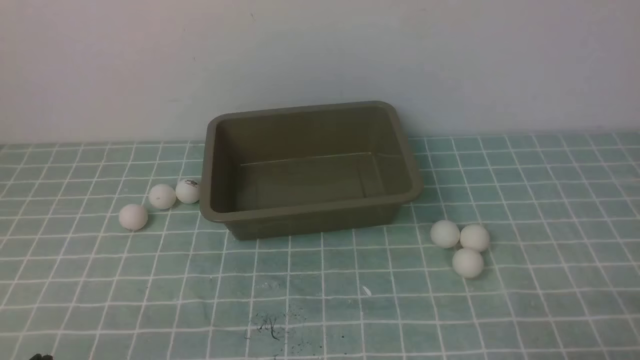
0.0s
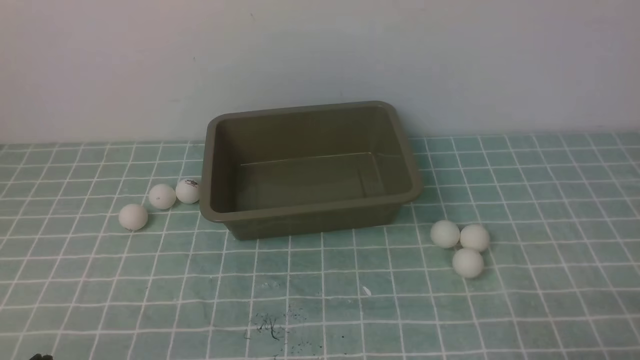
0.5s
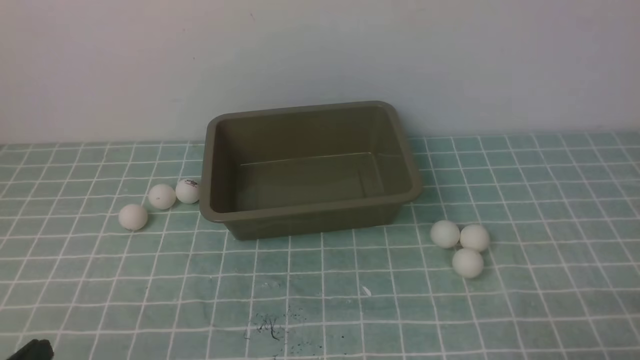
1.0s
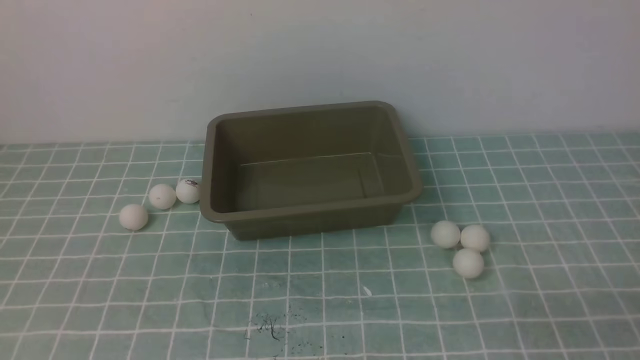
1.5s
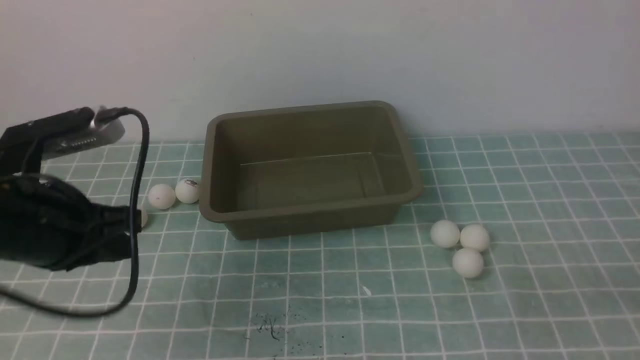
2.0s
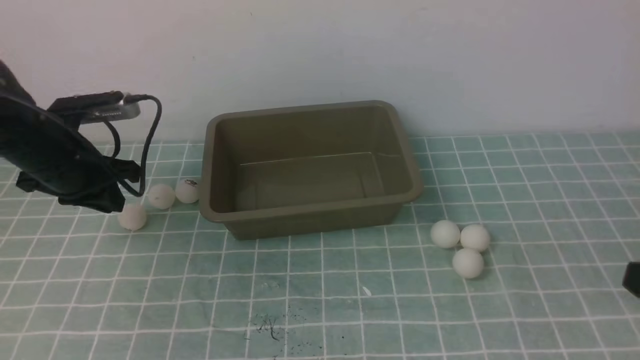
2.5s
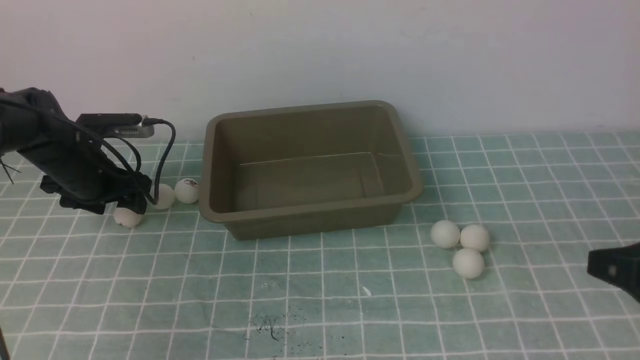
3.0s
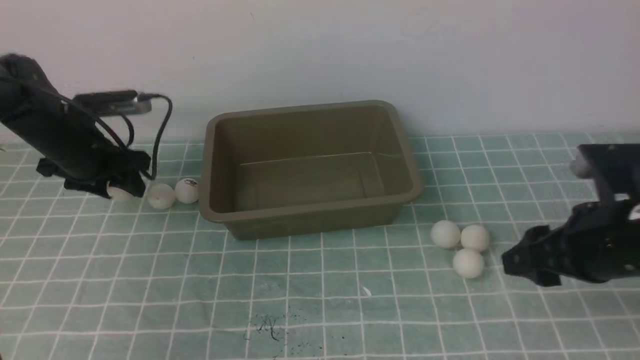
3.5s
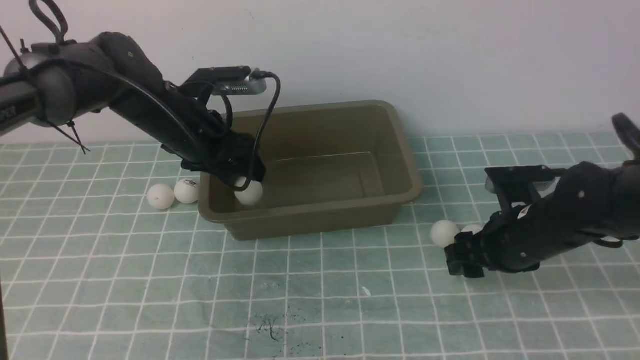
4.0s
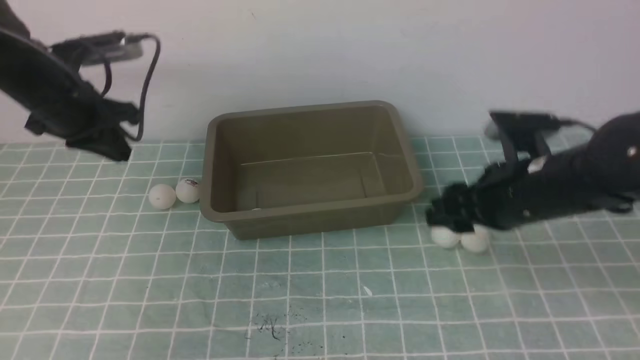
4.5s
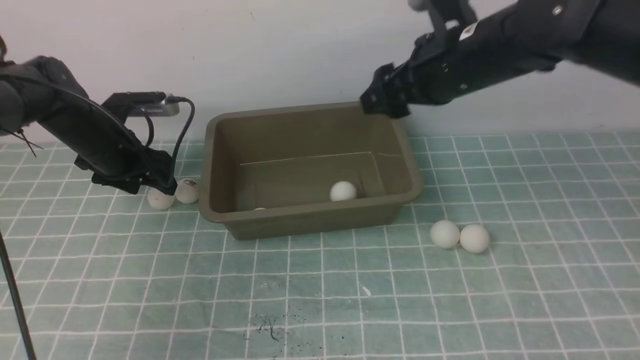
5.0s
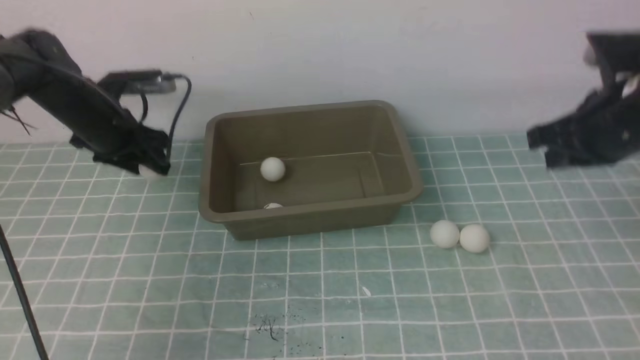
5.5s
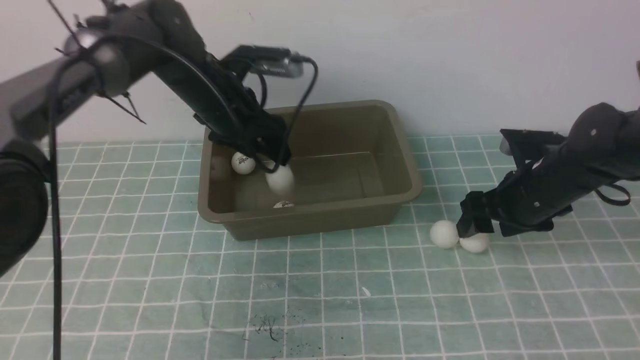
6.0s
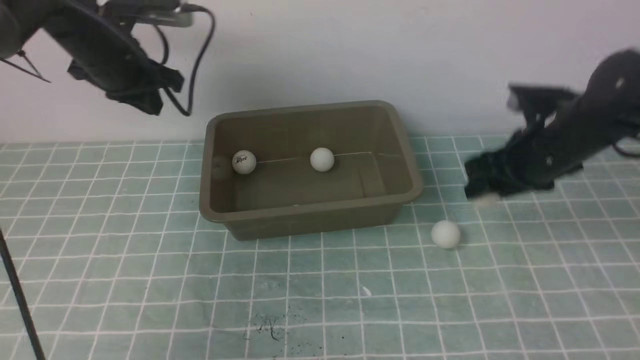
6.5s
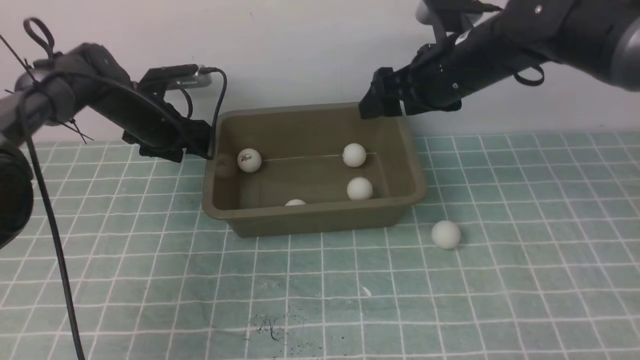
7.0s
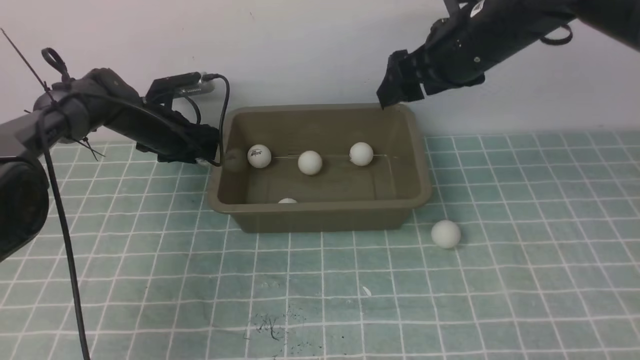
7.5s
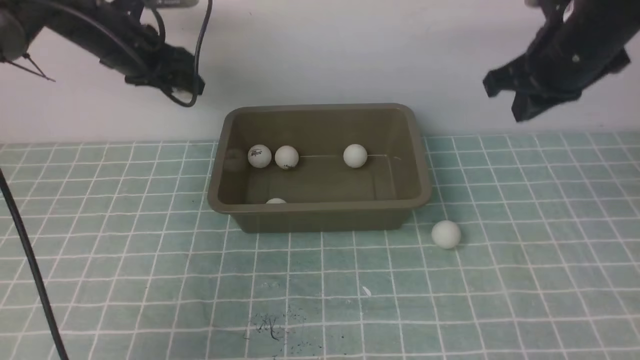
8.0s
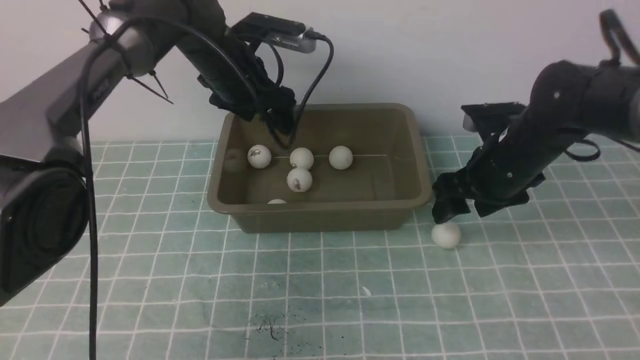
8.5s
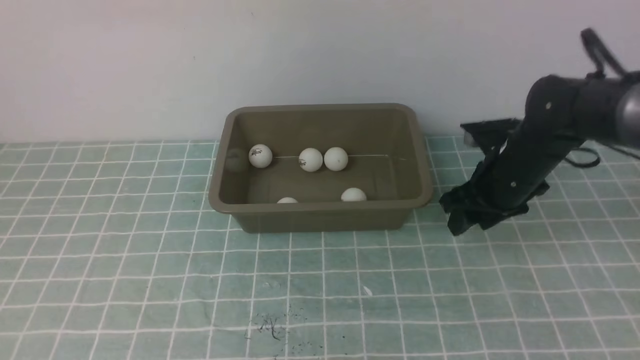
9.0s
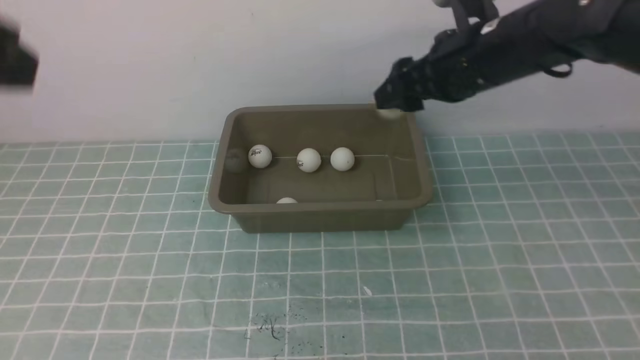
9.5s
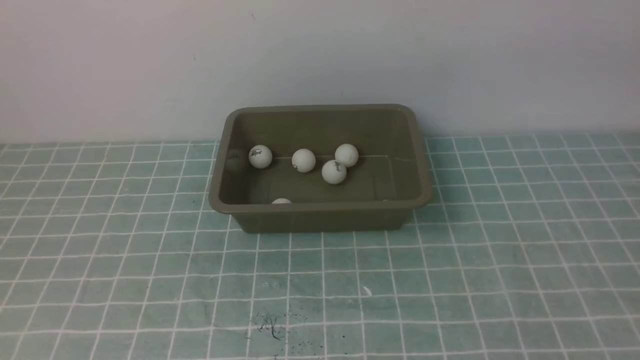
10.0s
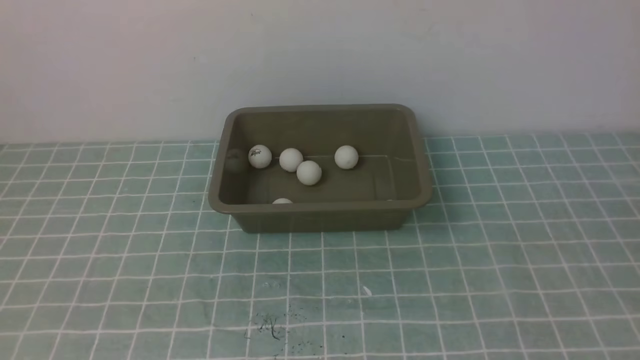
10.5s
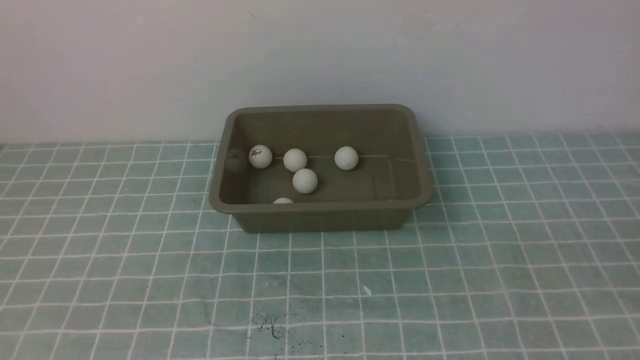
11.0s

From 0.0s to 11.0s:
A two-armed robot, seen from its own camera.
Step, from 0.0s to 3.5s: use the left arm to clamp the table tennis ball closest to it.
Step, from 5.5s to 6.0s: use the left arm to put the table tennis ball into the box.
From 0.0s to 2.0s: The left gripper is displaced forward and upward by some 20 cm, while the right gripper goes some 5 cm upward.
From 2.0s to 3.5s: The left gripper shifts approximately 20 cm forward and downward, and opens up. Meanwhile the right gripper heads forward, covering some 20 cm, and opens up.
From 3.5s to 5.5s: The left gripper travels to the right and back again, roughly 10 cm each way, and closes, then reopens, while the right gripper goes up and down, about 15 cm each way, reversing 2 times, and closes its fingers.
From 5.5s to 7.5s: The left gripper moves downward and forward, approximately 10 cm, and closes and opens again; the right gripper travels to the left, upward and forward by roughly 15 cm, and opens up.
From 7.5s to 9.0s: The left gripper travels upward and backward by approximately 40 cm, and closes up. The right gripper is displaced downward by some 10 cm, and closes, then reopens.
From 9.0s to 11.0s: The left gripper moves backward and downward, about 40 cm, while the right gripper shifts about 35 cm backward, and closes.

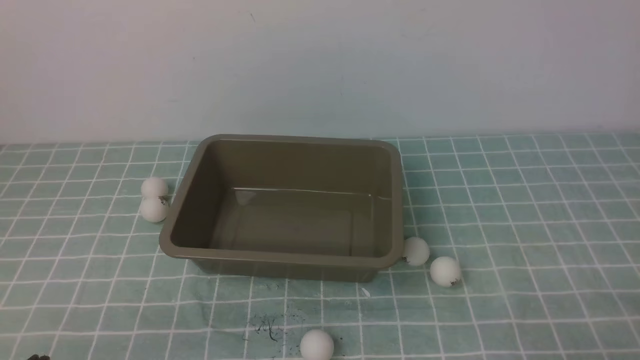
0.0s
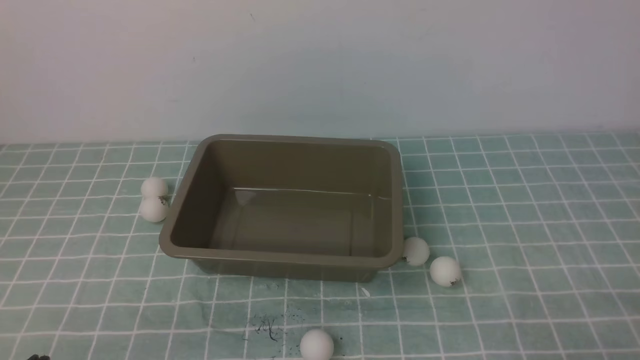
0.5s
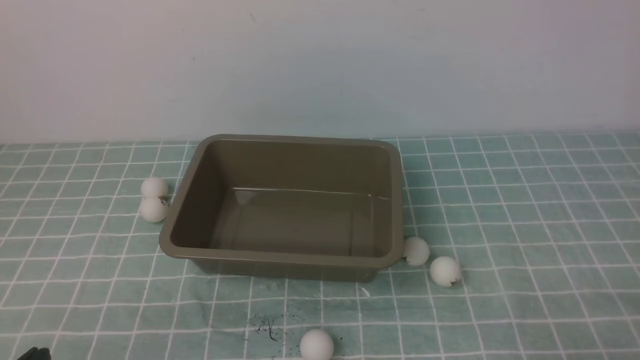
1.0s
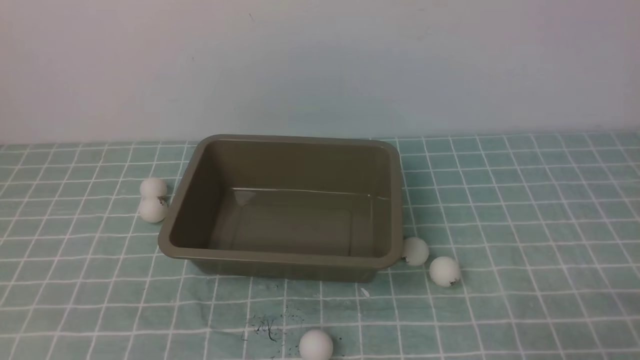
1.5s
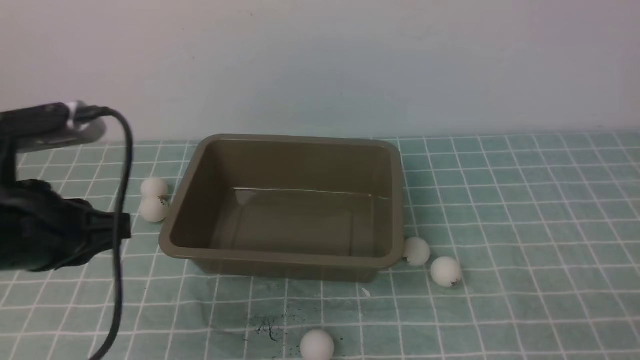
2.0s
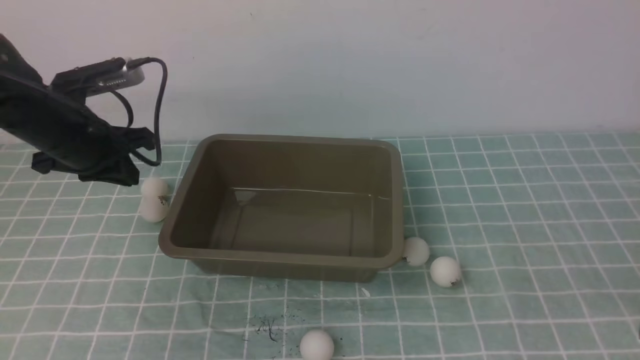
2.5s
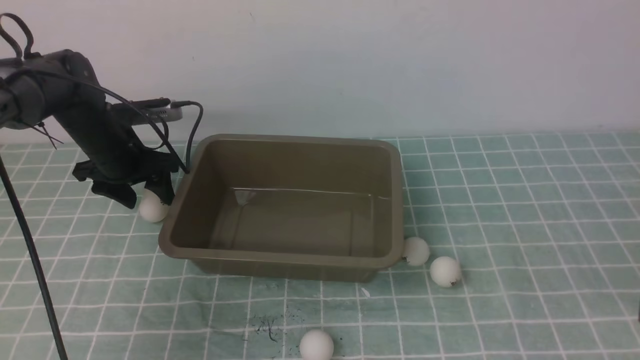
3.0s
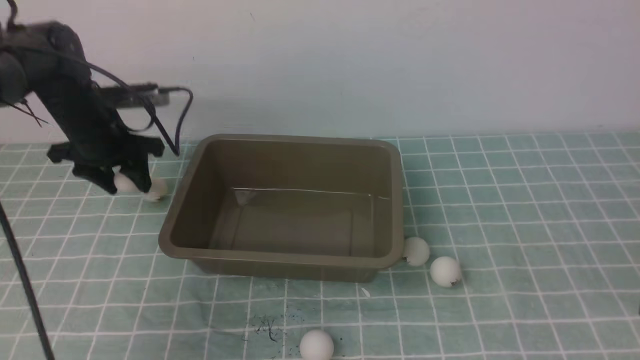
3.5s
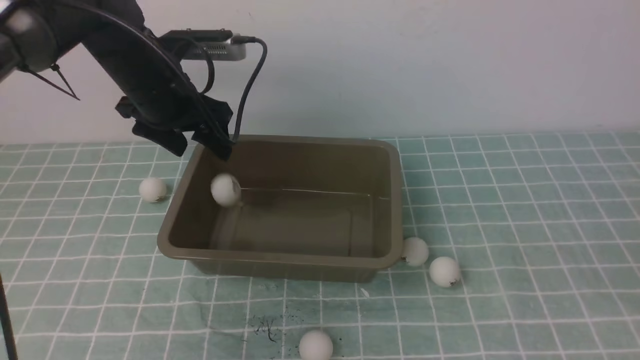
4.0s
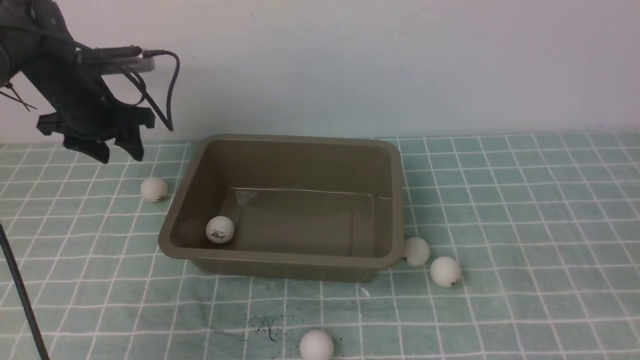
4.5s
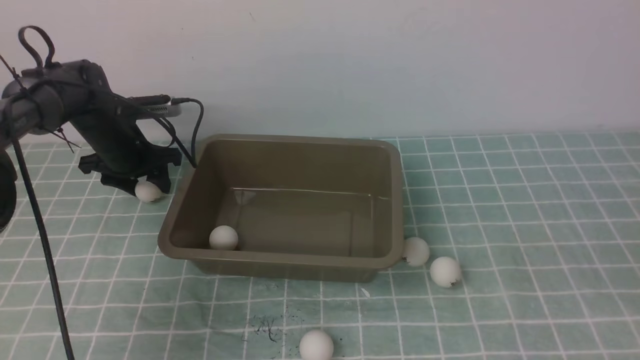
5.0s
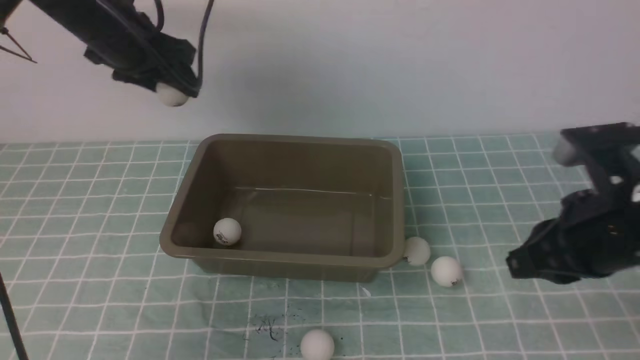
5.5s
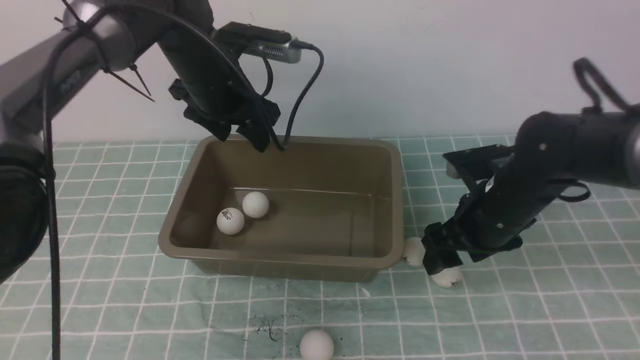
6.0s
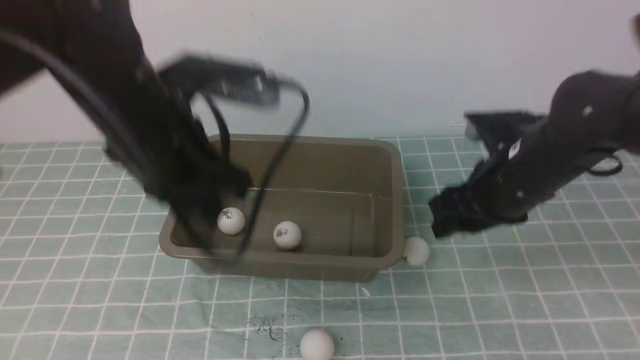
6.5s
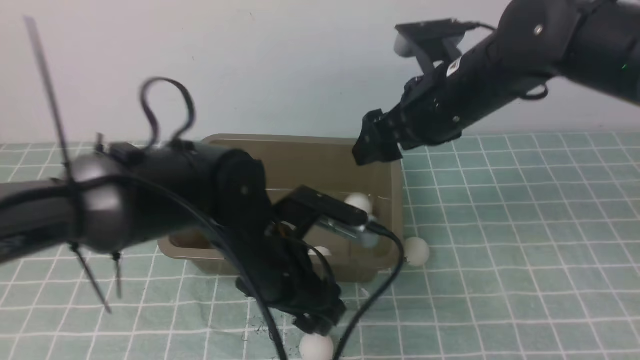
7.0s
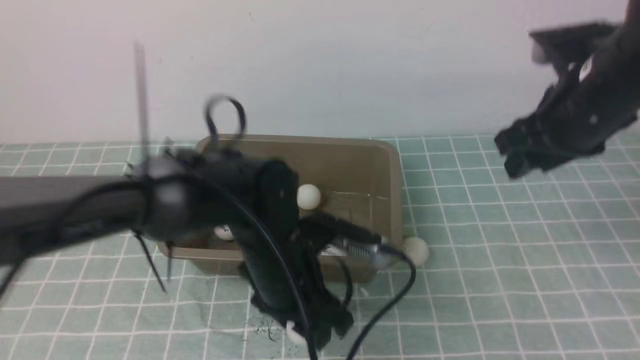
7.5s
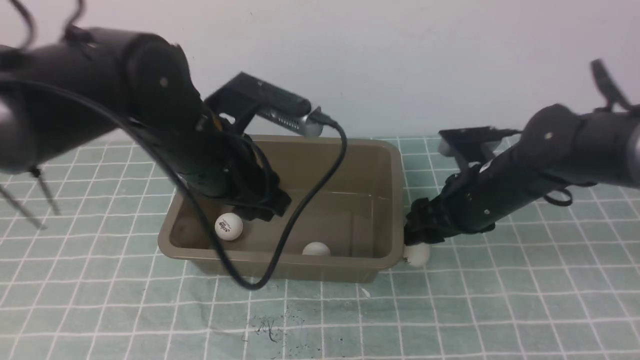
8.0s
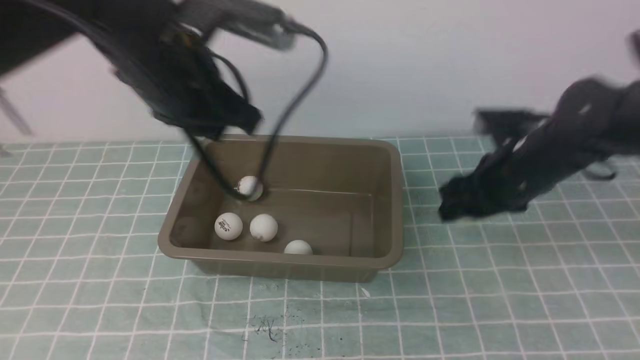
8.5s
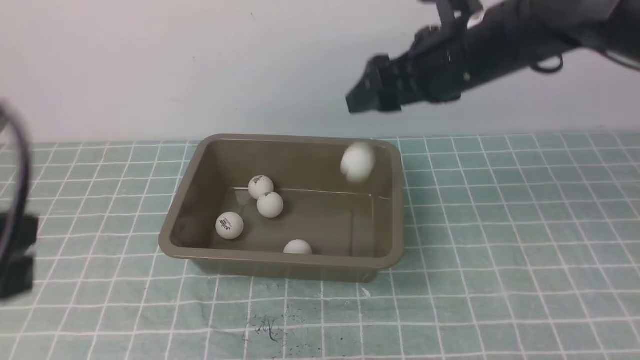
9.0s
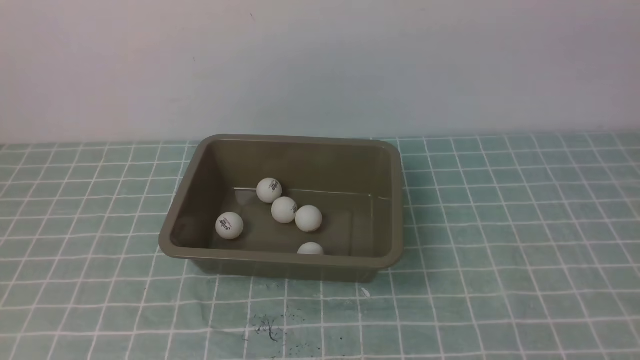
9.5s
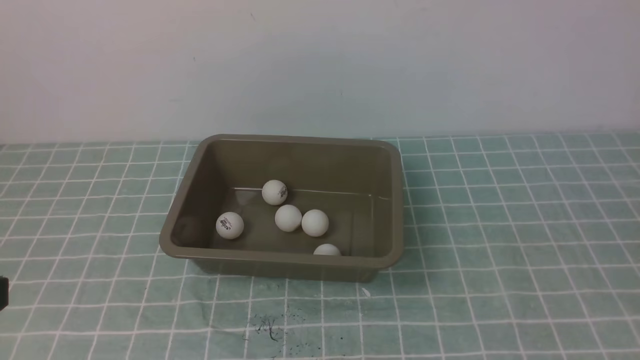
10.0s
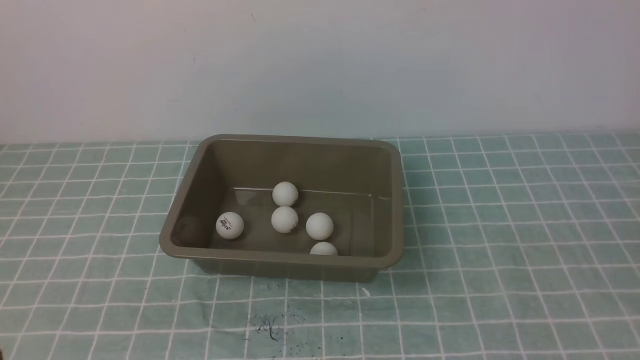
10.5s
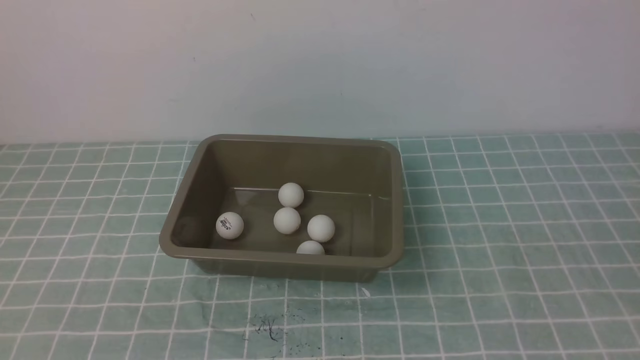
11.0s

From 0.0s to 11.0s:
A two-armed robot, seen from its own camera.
Step, from 0.0s to 3.5s: use the left arm to clamp the table tennis ball closest to it.
Step, from 4.5s to 5.0s: use the left arm to clamp the table tennis ball closest to it.
Step, from 7.5s to 8.0s: use the left arm to put the table tennis ball into the box.
From 0.0s to 2.0s: The left gripper goes some 20 cm forward and upward; the right gripper travels upward by some 5 cm.
From 2.0s to 3.5s: The right gripper moves upward, approximately 10 cm, while the left gripper heads forward, covering some 25 cm, and opens its fingers.
From 3.5s to 5.5s: The right gripper travels forward by approximately 15 cm. The left gripper moves up and down over approximately 15 cm, changing direction 2 times.
From 5.5s to 7.5s: The right gripper is displaced forward by roughly 10 cm, travels downward and back again, roughly 10 cm each way, and opens, while the left gripper moves backward, to the right and downward, about 25 cm, and closes and opens again.
From 7.5s to 9.0s: The right gripper shifts about 10 cm upward and to the left, while the left gripper is displaced to the left, upward and backward by approximately 30 cm, and closes up.
From 9.0s to 11.0s: The right gripper travels backward and to the right by about 35 cm, and closes up. The left gripper shifts approximately 15 cm backward and downward.
